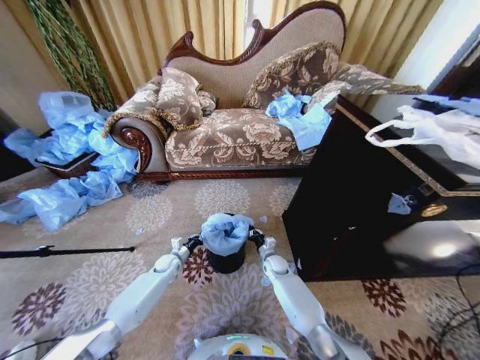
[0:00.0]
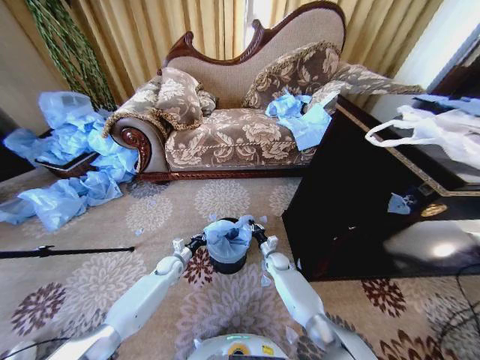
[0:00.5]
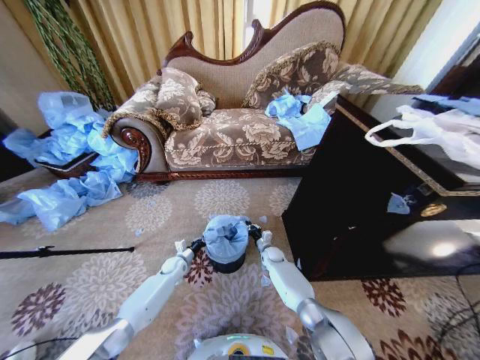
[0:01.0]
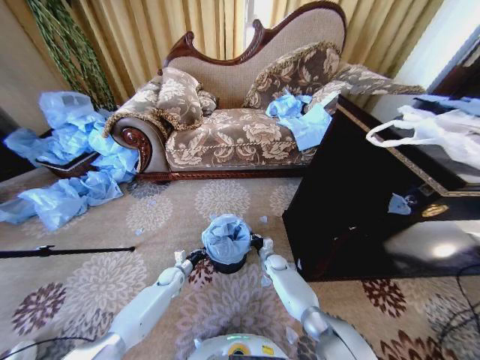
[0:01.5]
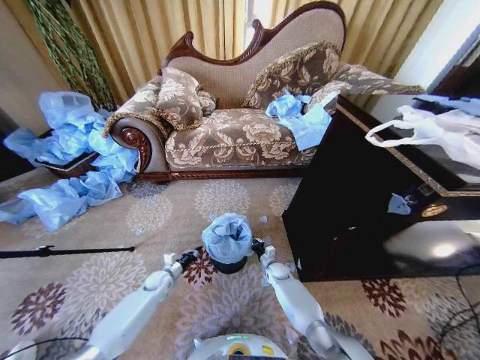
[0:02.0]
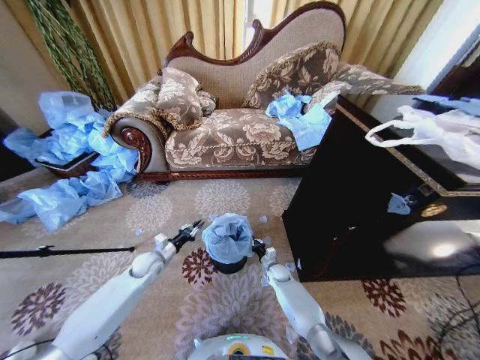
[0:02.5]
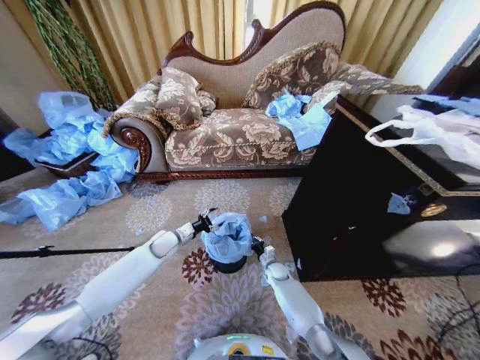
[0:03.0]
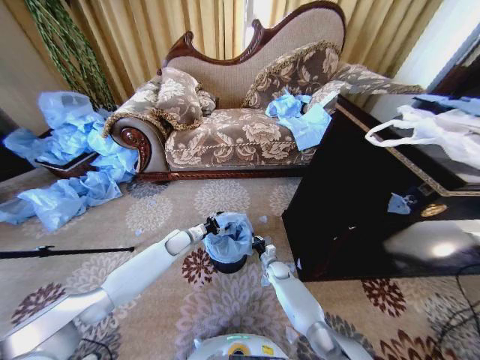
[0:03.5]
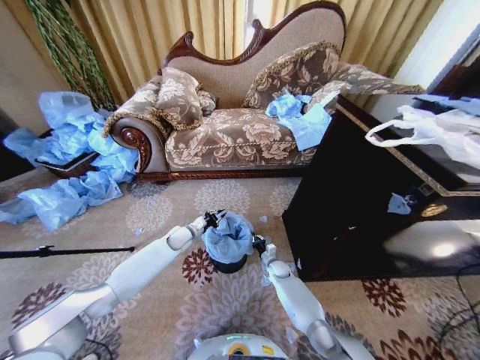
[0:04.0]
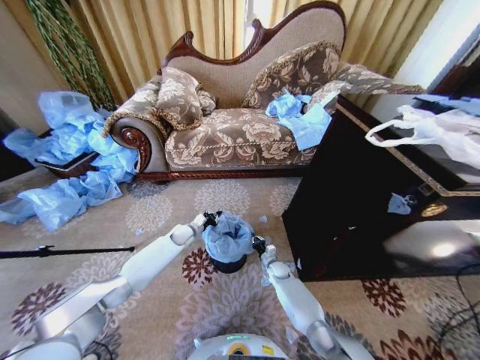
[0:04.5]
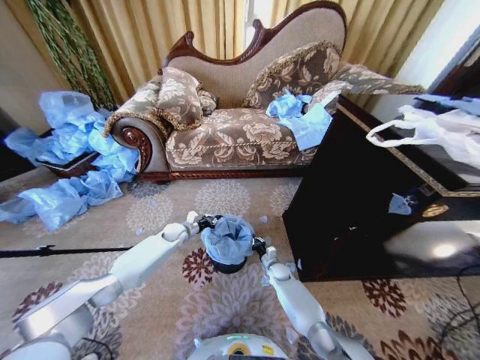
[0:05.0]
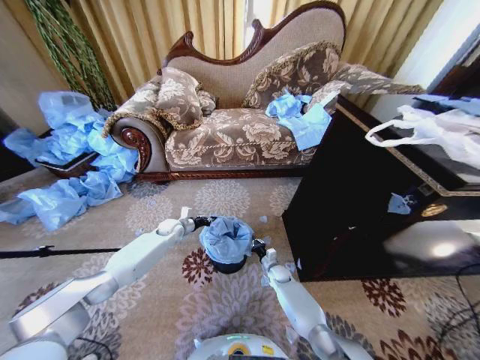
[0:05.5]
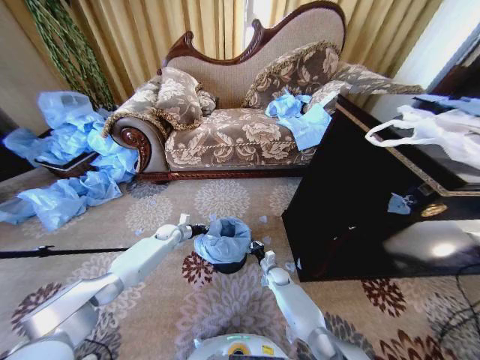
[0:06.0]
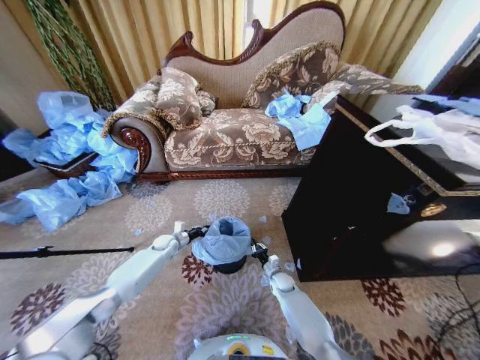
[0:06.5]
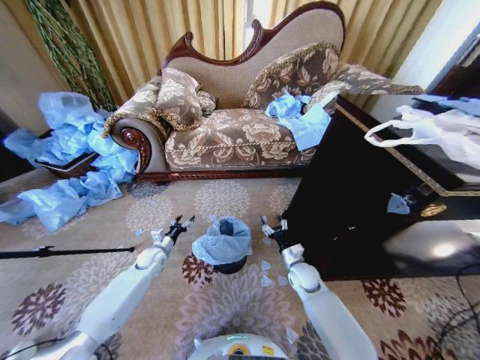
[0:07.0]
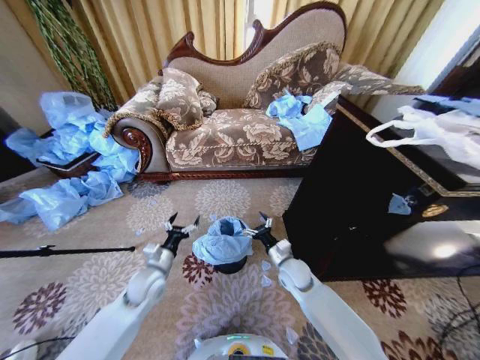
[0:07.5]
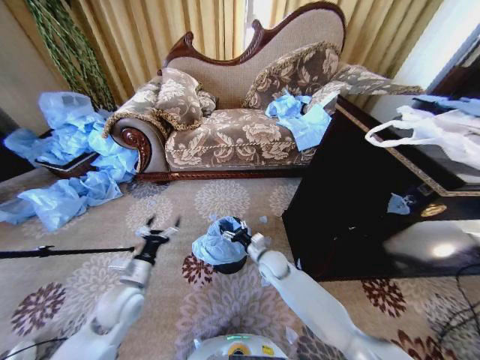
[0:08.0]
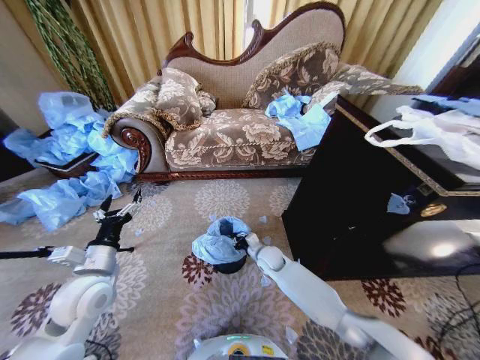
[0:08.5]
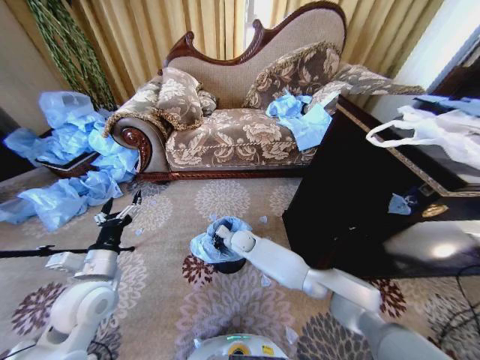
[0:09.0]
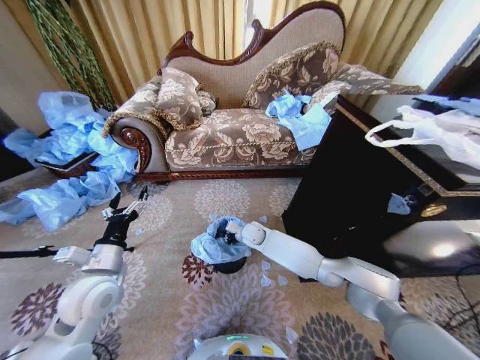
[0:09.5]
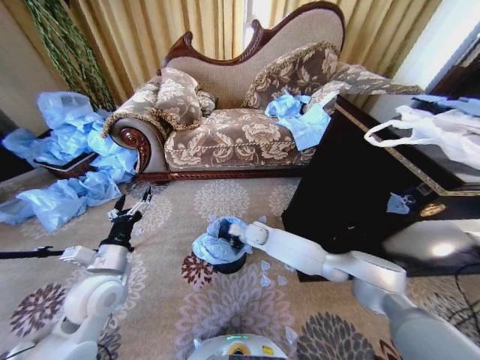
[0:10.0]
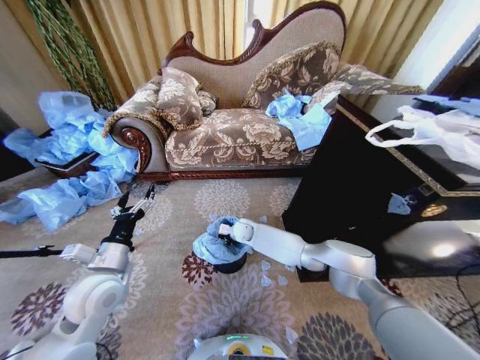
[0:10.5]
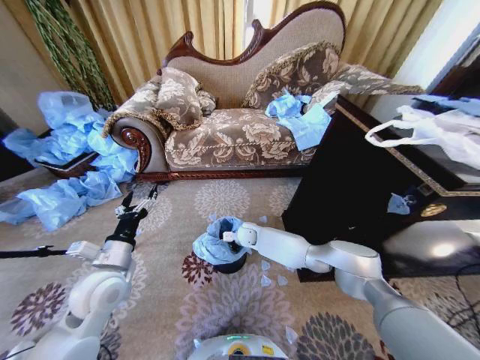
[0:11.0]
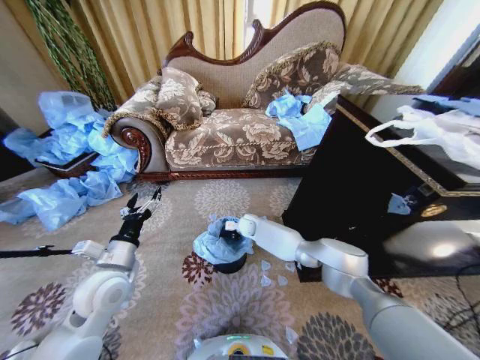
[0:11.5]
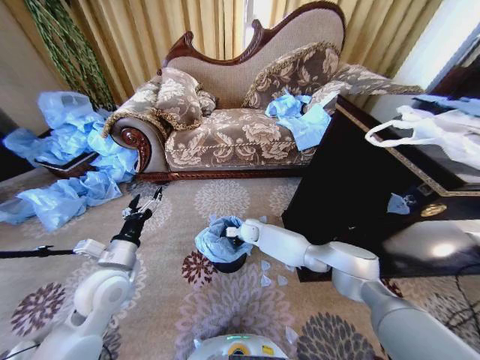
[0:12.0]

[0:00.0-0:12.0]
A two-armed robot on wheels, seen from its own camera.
Task of the whole recording: Place a garbage bag over the trash bin.
0:00.0 to 0:02.0: The left gripper shifts about 5 cm backward; the right gripper travels downward by roughly 5 cm.
0:02.0 to 0:04.0: The left gripper goes approximately 20 cm upward, forward and to the right, and opens, then closes once more.
0:04.0 to 0:06.0: The left gripper travels to the left by roughly 5 cm.
0:06.0 to 0:08.0: The left gripper shifts about 30 cm backward, and opens up. Meanwhile the right gripper is displaced upward by about 20 cm, and opens its fingers.
0:08.0 to 0:10.0: The left gripper is displaced upward by some 10 cm; the right gripper shifts about 15 cm forward and to the left, and closes up.

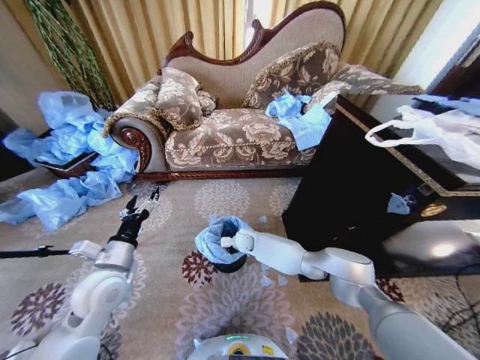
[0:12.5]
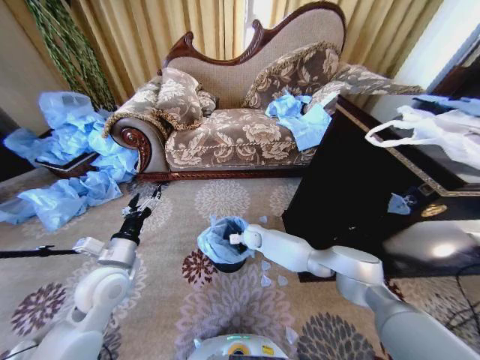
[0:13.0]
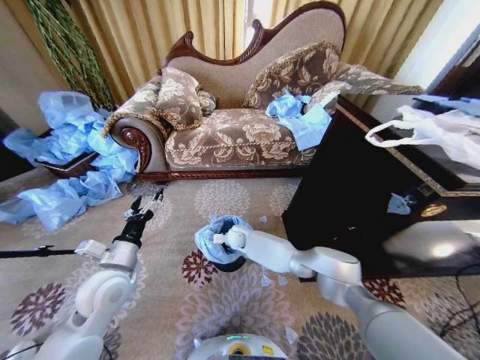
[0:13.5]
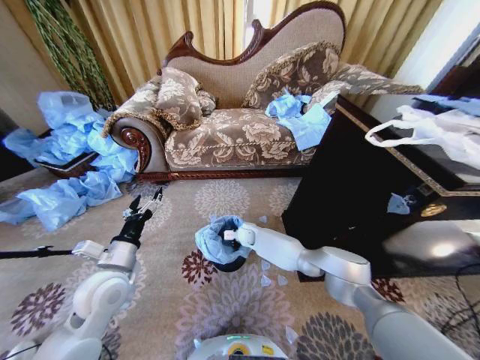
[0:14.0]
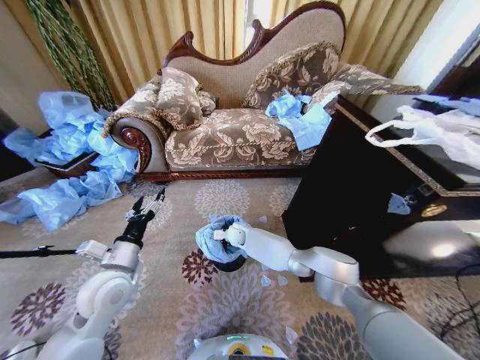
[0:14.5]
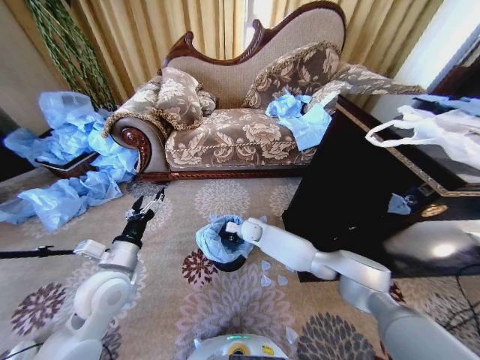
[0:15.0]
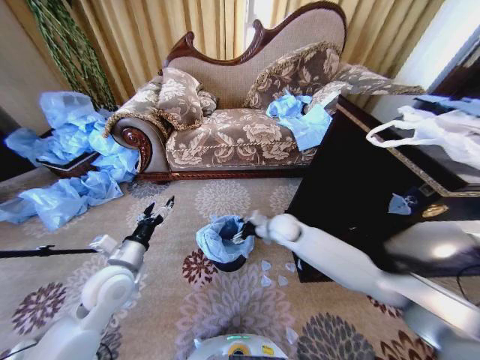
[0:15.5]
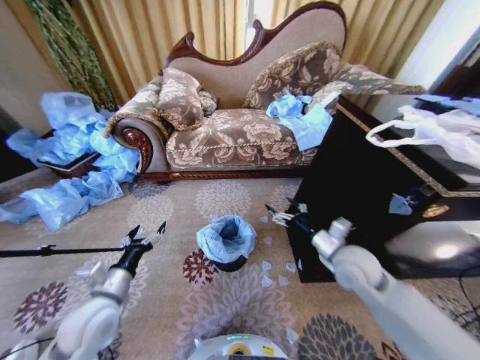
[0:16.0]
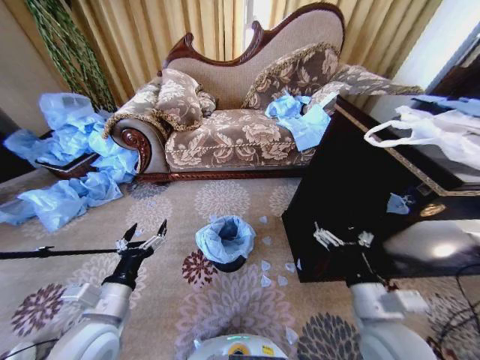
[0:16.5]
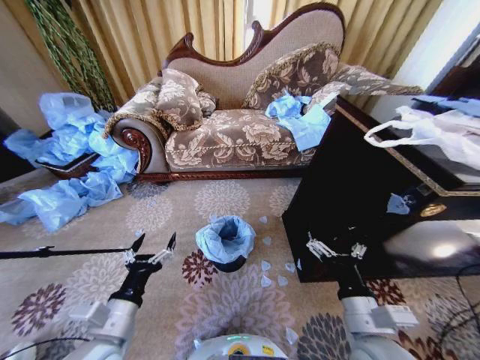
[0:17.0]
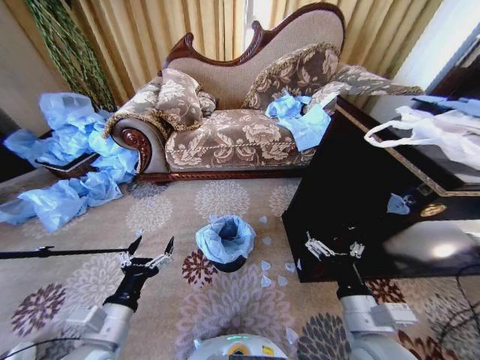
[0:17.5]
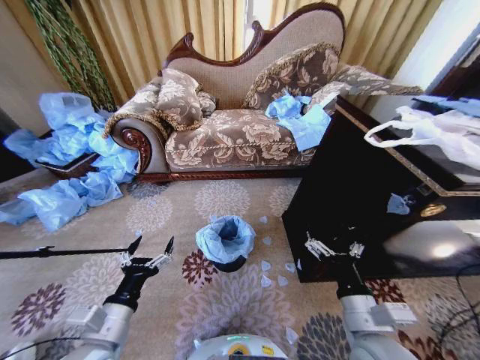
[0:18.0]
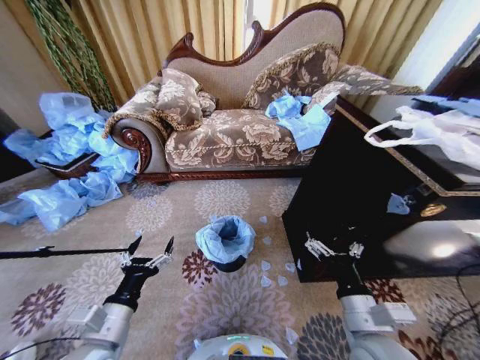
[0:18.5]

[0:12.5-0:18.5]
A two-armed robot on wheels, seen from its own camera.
Task of the whole recording: Place a garbage bag over the trash bin.
0:12.5 to 0:14.5: The right gripper moves left and right over roughly 10 cm, changing direction 3 times.
0:14.5 to 0:16.5: The right gripper travels backward, to the right and upward by some 50 cm, and opens its fingers. Meanwhile the left gripper travels backward by roughly 10 cm.
0:16.5 to 0:18.5: The grippers stay close to where they were, moving slightly.
